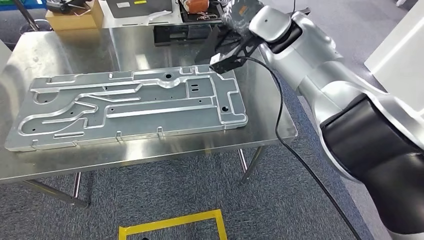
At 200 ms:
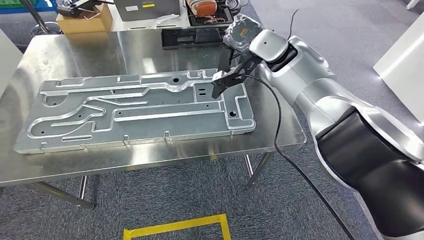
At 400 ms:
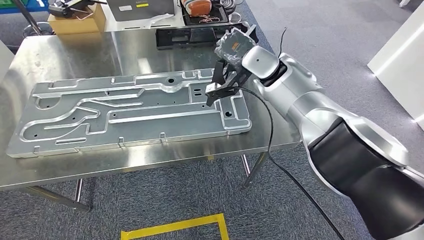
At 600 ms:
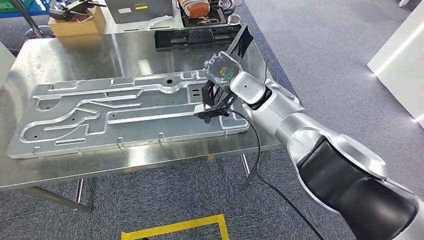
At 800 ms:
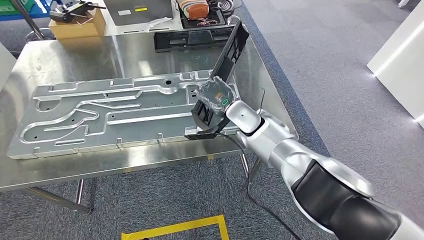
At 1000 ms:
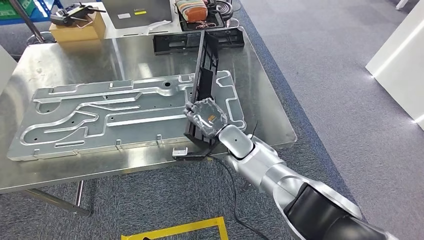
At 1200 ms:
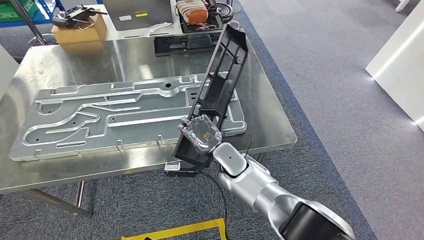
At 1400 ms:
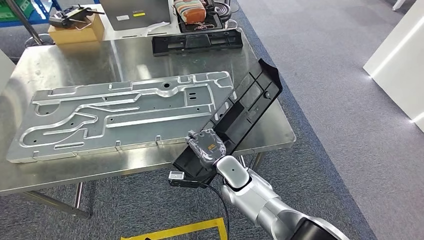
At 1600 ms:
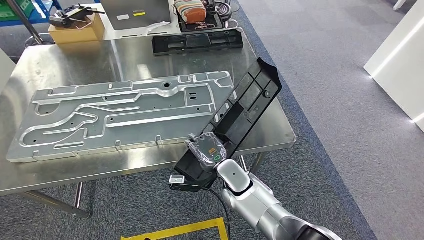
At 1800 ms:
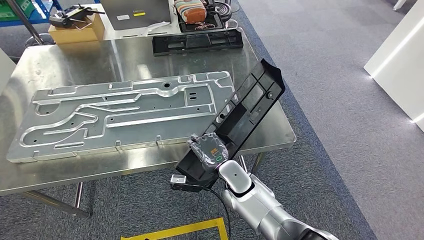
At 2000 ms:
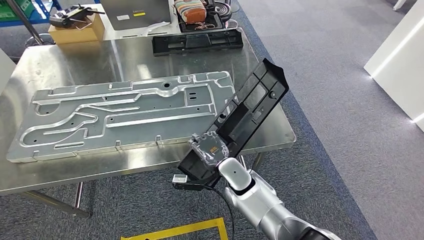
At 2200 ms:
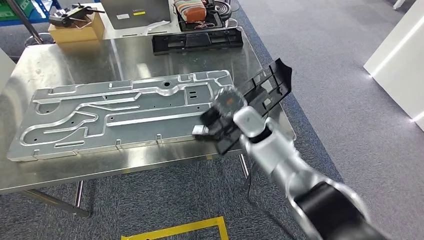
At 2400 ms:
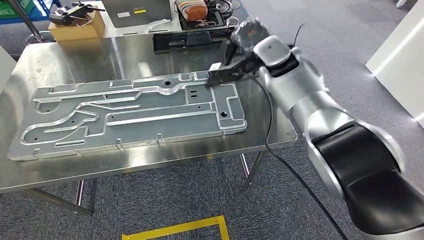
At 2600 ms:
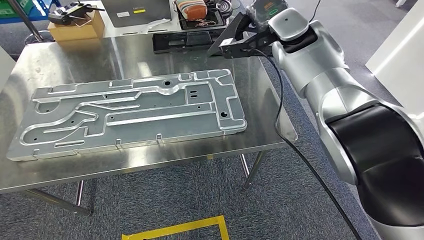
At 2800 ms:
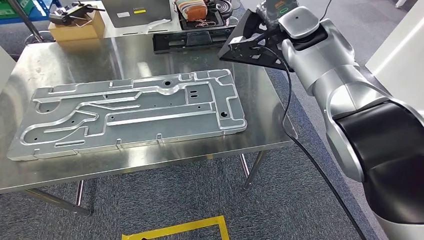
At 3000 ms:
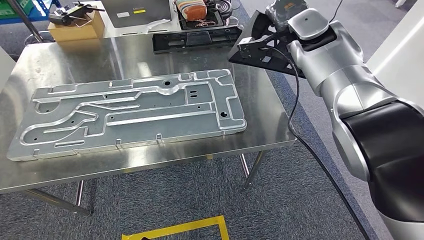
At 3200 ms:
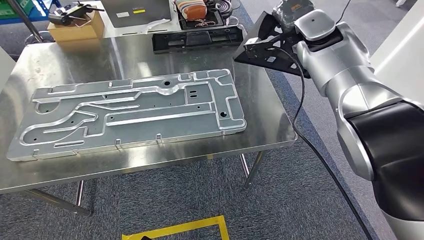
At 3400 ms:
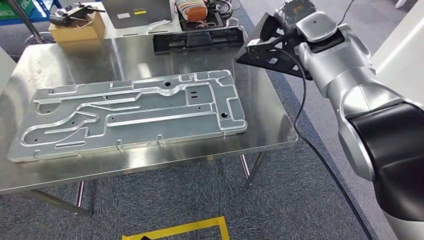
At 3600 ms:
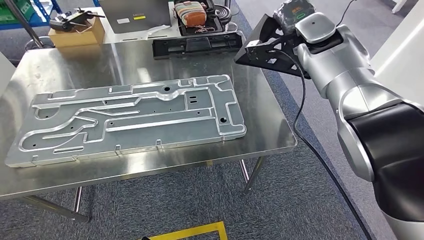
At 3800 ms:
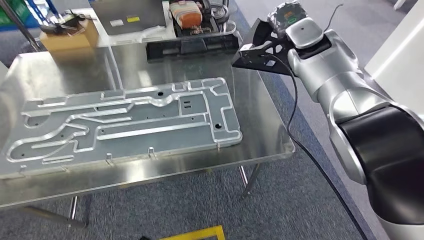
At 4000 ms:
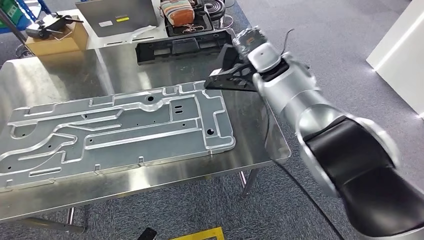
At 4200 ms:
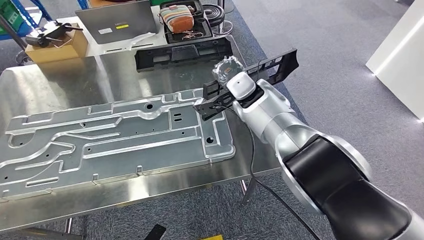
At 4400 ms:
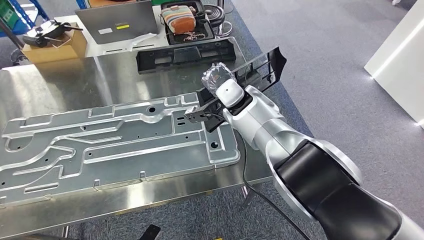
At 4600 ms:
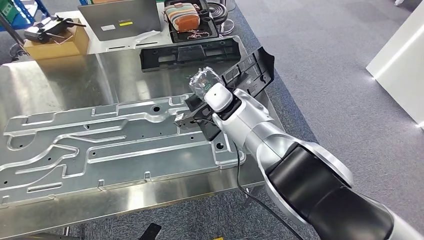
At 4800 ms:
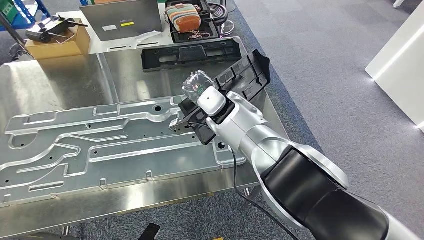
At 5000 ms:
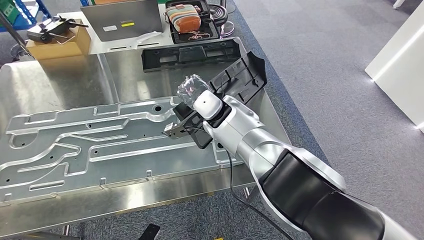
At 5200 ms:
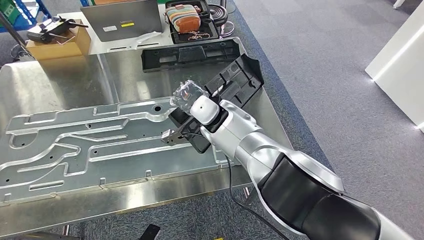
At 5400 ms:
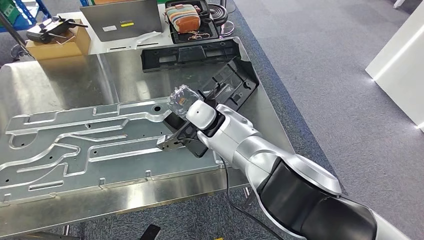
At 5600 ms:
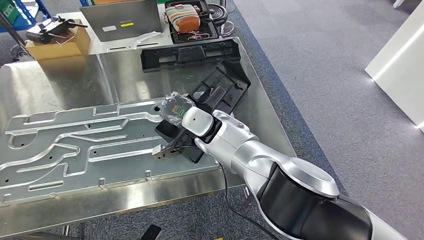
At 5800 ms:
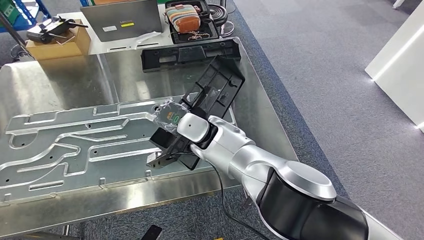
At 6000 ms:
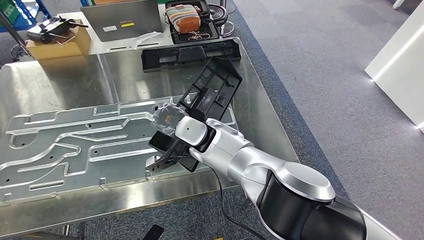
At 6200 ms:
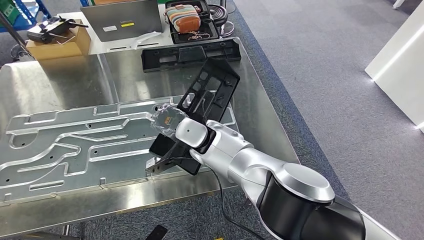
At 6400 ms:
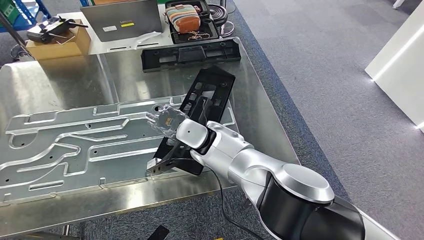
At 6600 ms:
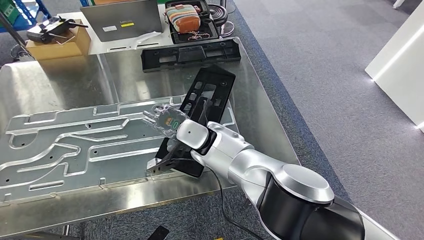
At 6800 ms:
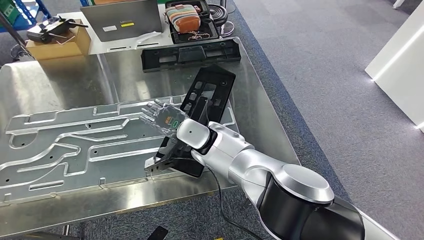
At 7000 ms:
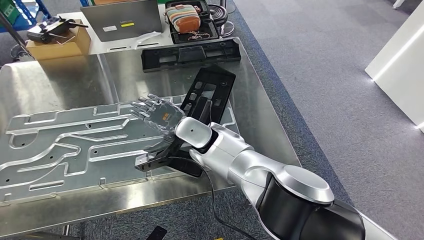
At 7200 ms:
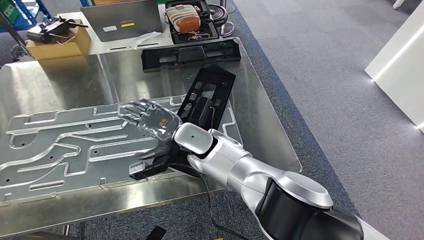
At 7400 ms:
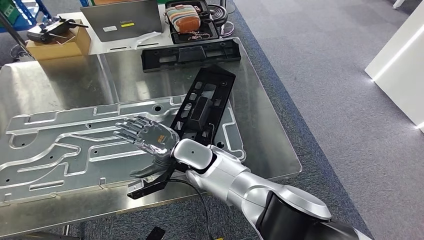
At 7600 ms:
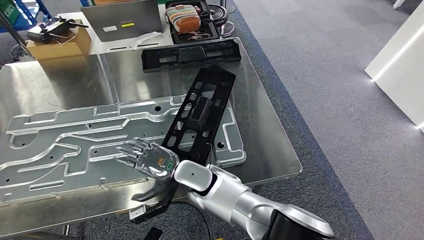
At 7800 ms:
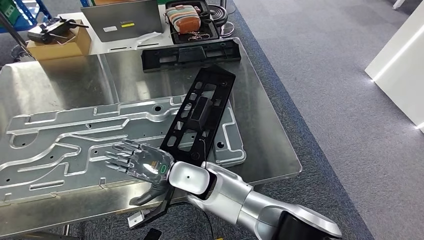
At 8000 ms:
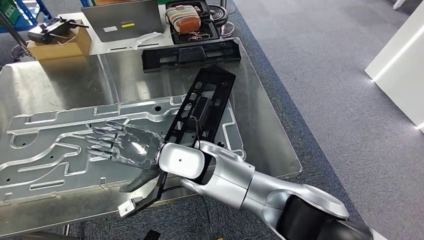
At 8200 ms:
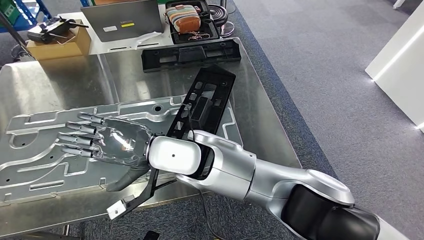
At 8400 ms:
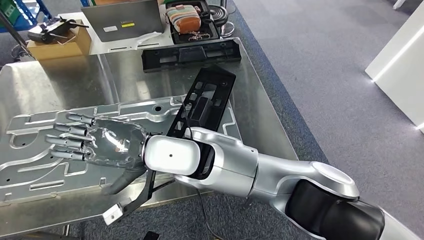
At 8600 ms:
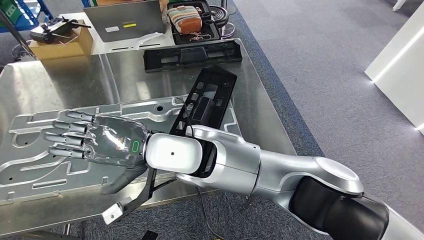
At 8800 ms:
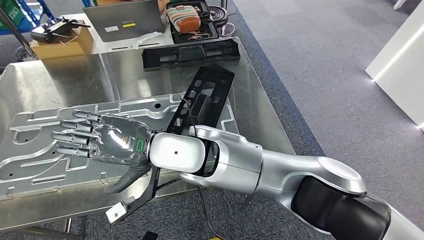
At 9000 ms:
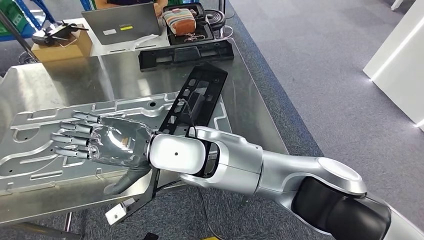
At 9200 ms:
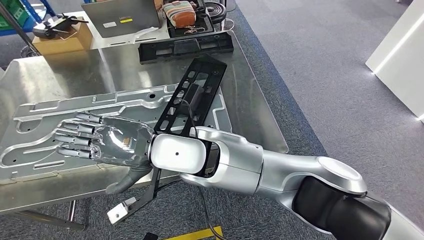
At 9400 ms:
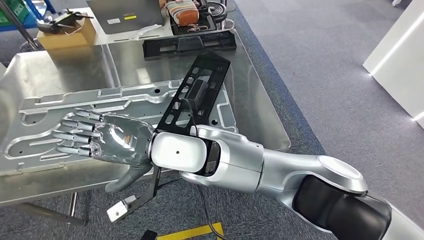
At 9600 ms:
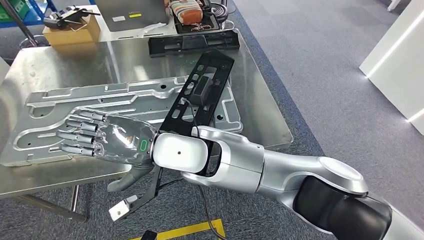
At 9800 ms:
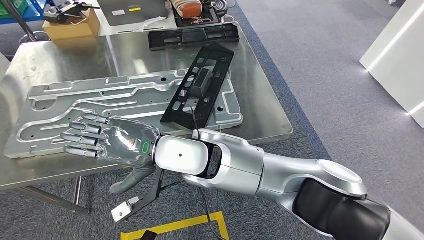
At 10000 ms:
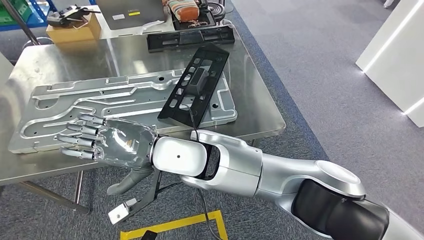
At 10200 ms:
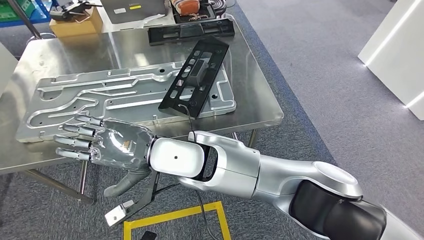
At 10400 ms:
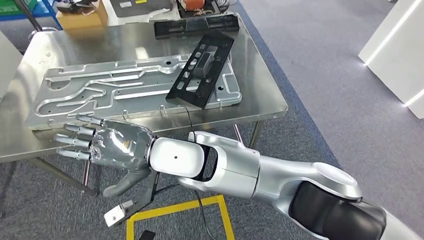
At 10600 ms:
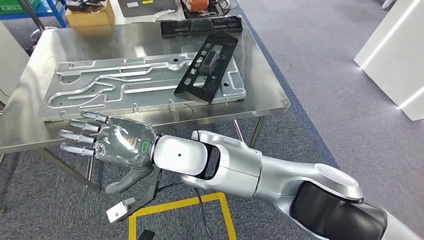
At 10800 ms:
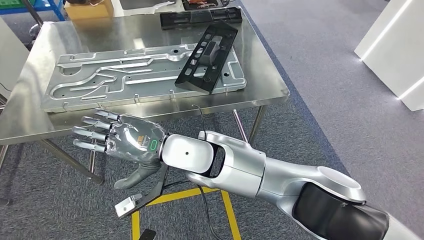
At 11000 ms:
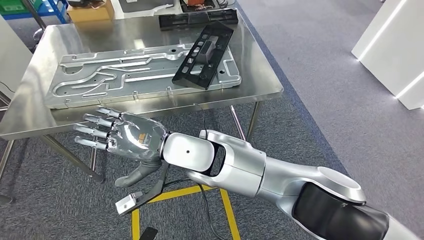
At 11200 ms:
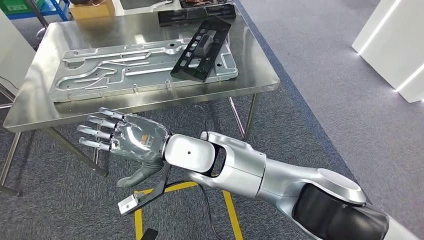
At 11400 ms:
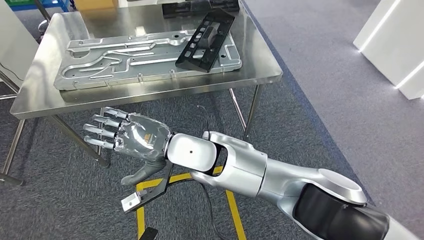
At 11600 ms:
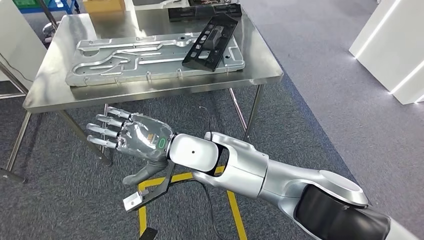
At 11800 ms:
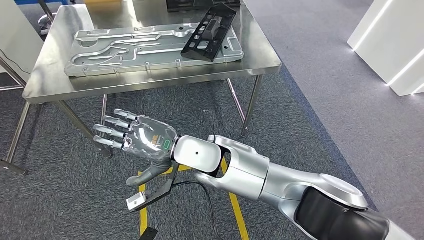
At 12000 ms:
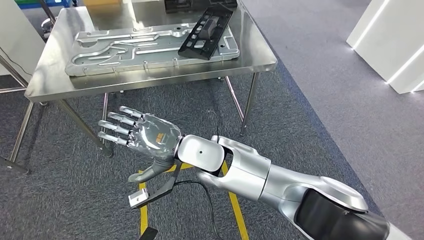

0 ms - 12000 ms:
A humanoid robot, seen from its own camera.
Step, 1000 ms - 8200 ms: Insert the large material into the corresponding slot on the workbench.
6000 ms - 7600 ms: The right hand heads downward and backward, covering some 10 cm.

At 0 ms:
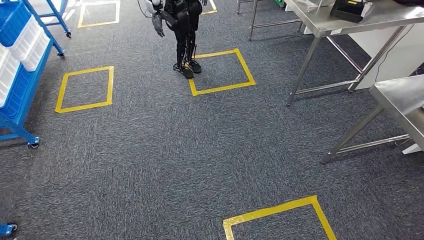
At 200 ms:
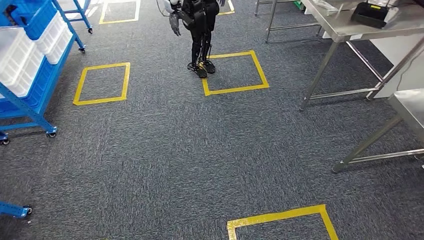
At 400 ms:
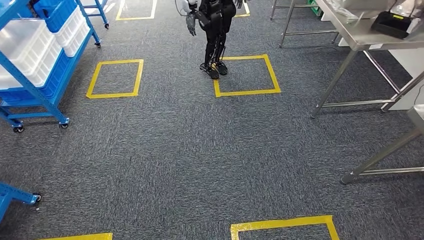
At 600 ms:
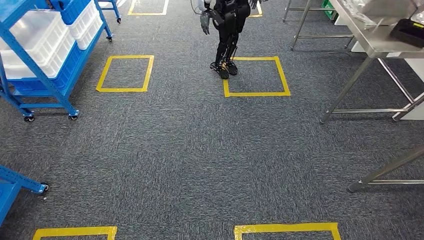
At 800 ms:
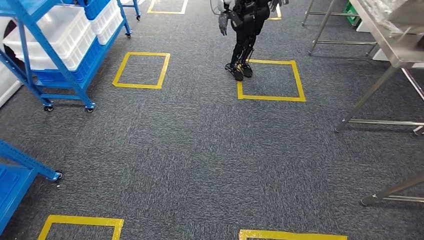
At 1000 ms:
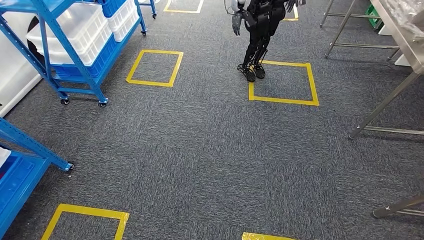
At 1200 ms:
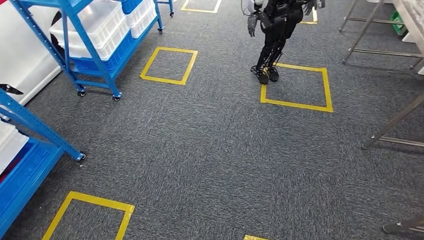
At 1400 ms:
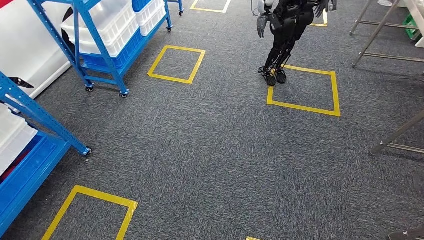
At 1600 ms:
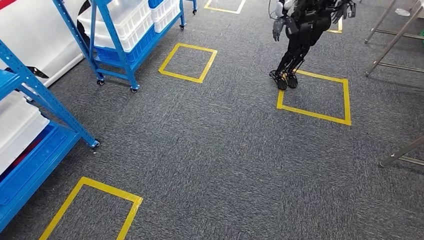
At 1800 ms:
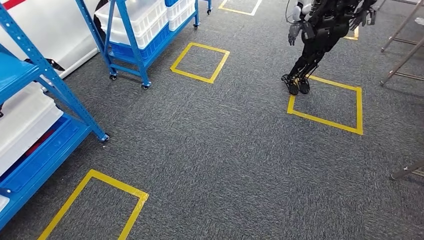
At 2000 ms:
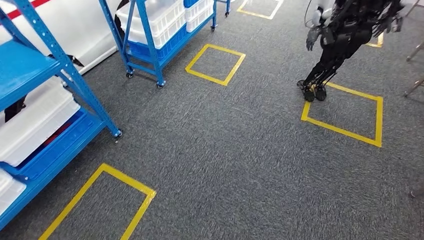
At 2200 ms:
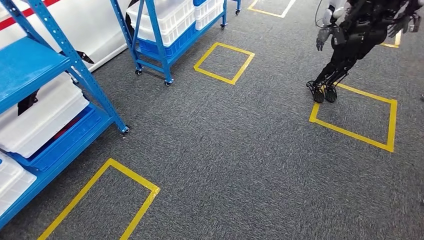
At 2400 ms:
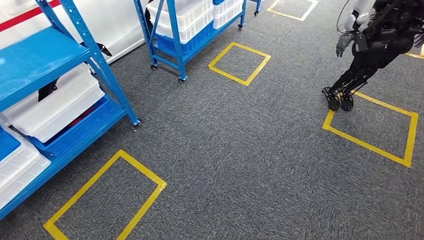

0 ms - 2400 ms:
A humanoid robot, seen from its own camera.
Step, 0 ms - 2400 ms: Move to the initial position of the shelf.

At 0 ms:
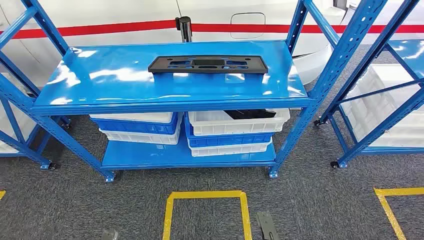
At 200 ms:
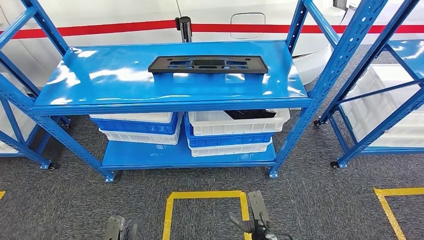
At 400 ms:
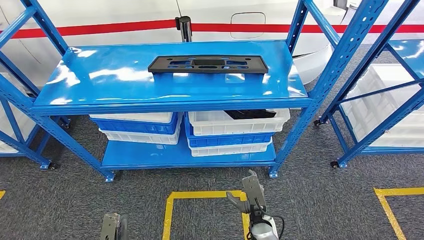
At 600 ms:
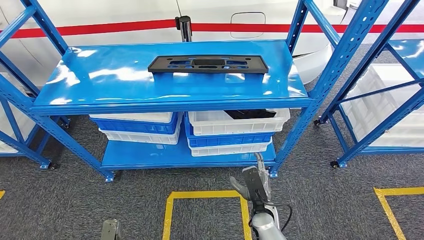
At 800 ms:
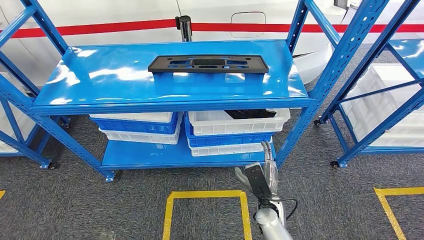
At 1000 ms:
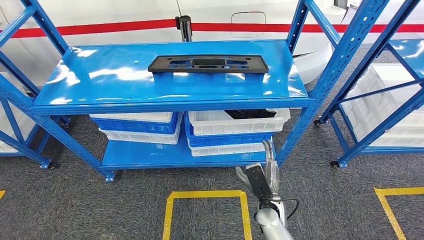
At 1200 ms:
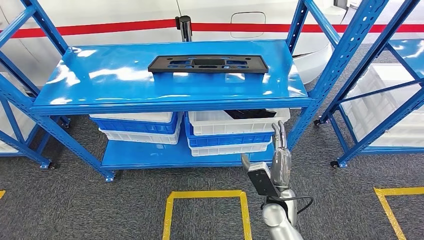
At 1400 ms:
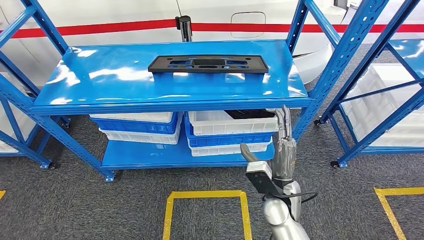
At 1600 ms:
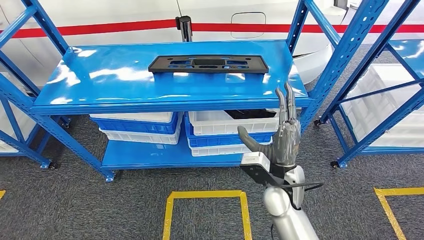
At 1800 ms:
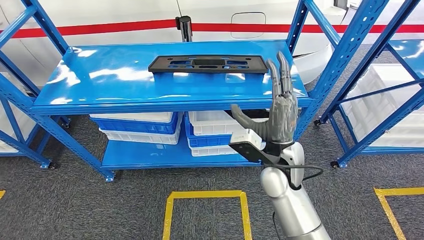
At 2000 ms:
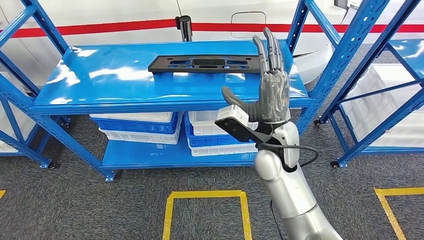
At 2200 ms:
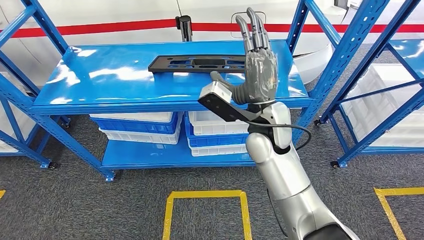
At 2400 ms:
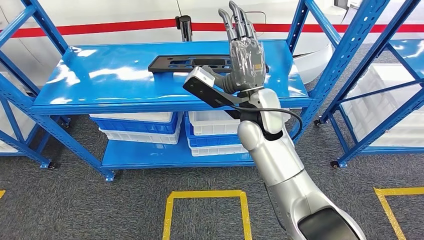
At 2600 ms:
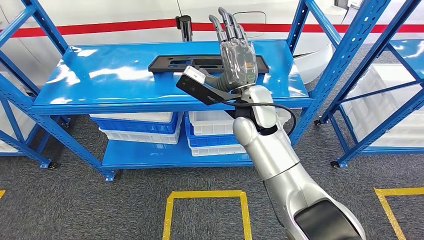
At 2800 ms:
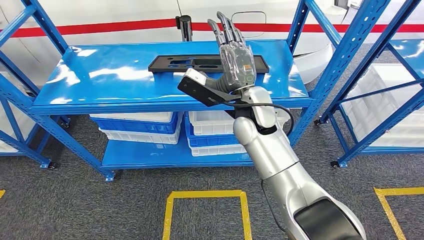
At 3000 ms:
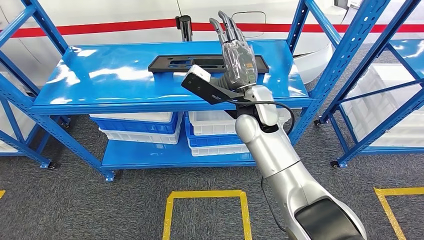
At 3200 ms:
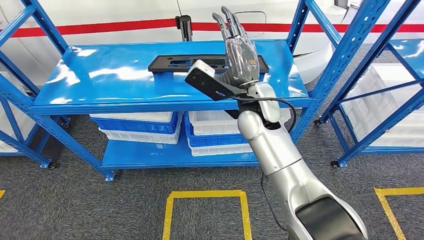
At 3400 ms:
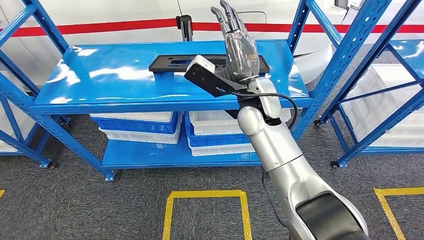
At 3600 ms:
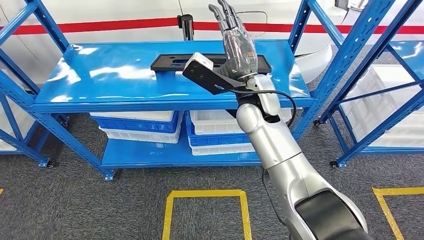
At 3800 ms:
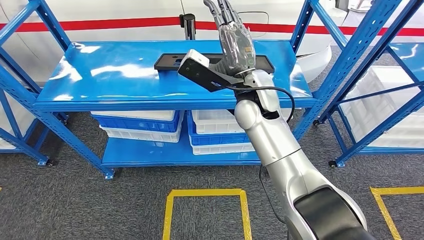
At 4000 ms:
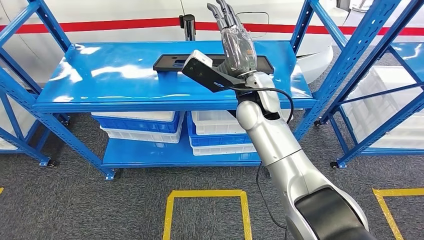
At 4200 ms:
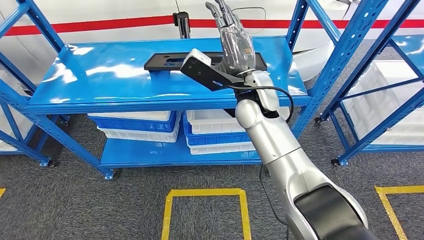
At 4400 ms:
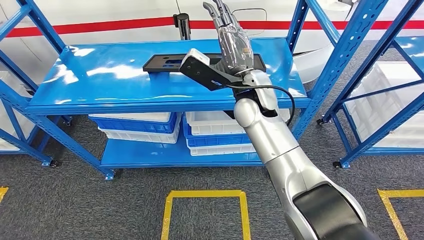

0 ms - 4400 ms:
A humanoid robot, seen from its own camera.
1400 ms - 3000 ms: The right hand is displaced upward, forward and to the left by approximately 25 cm.
